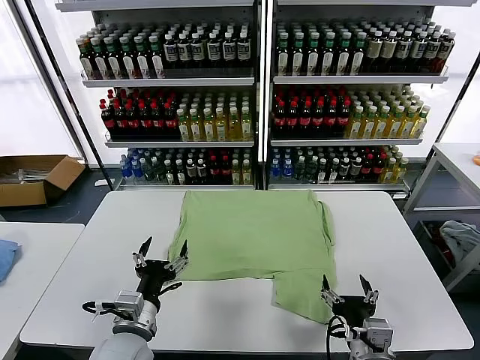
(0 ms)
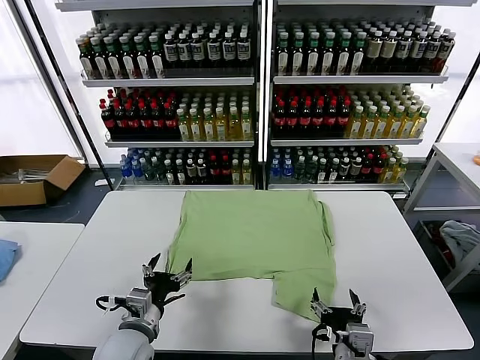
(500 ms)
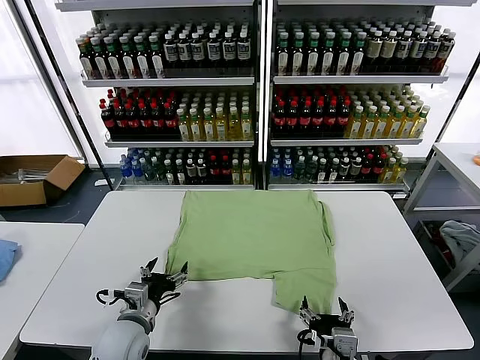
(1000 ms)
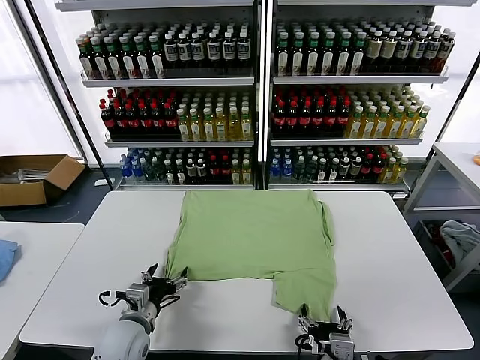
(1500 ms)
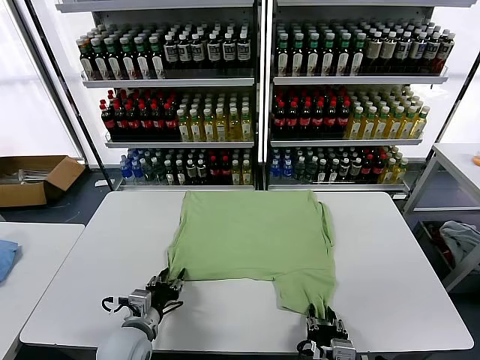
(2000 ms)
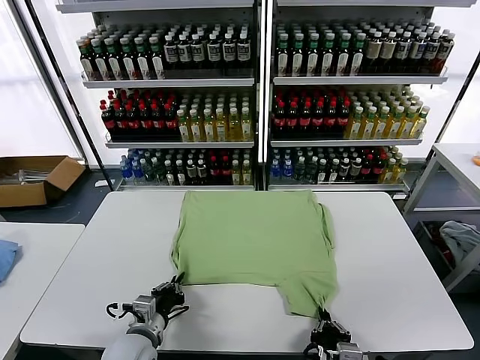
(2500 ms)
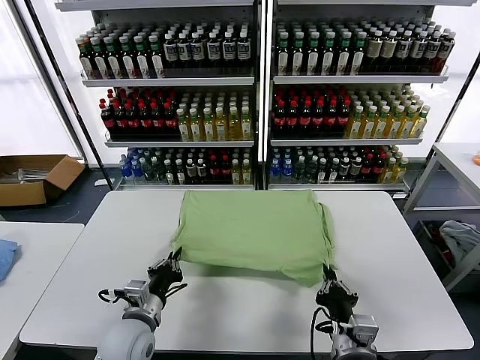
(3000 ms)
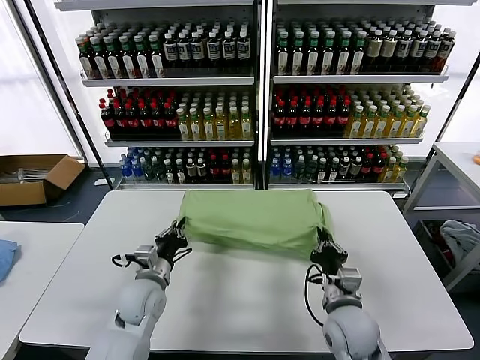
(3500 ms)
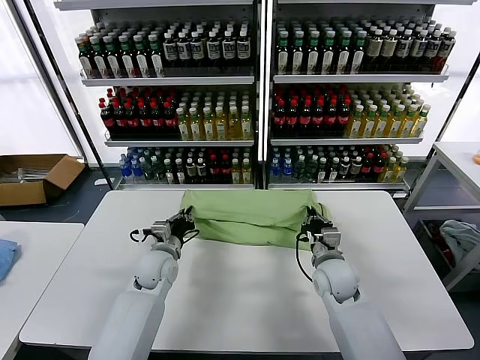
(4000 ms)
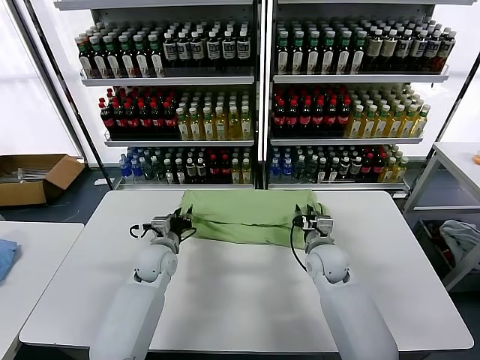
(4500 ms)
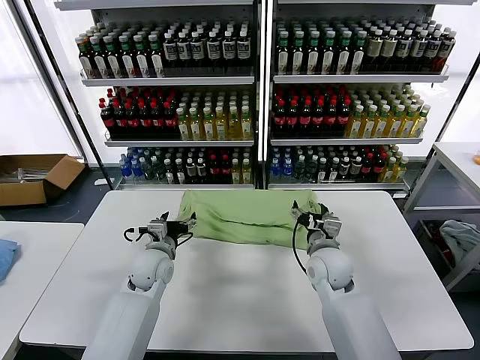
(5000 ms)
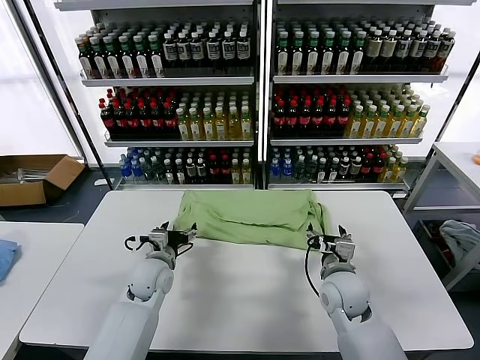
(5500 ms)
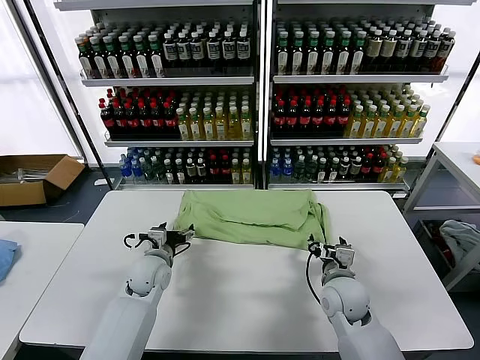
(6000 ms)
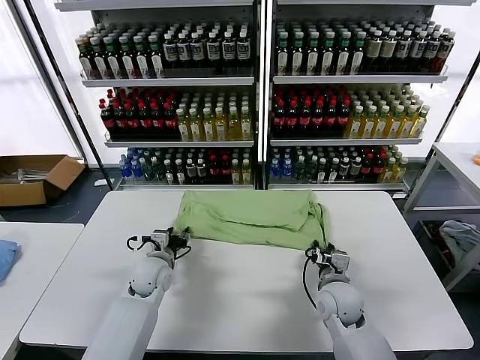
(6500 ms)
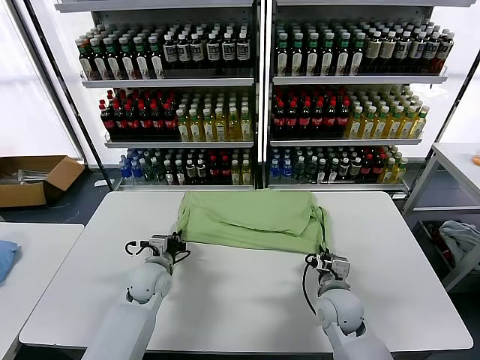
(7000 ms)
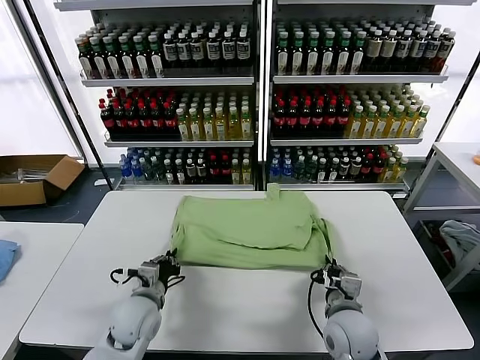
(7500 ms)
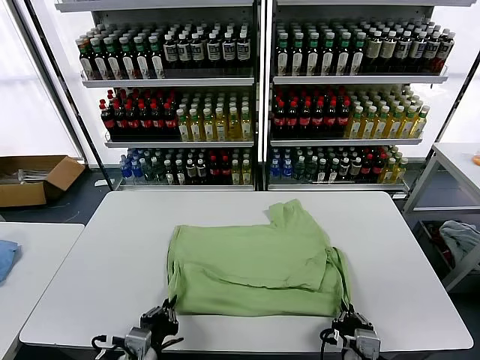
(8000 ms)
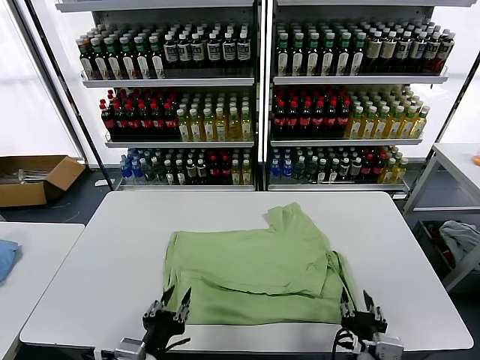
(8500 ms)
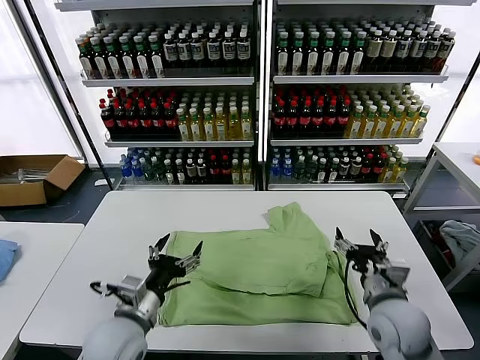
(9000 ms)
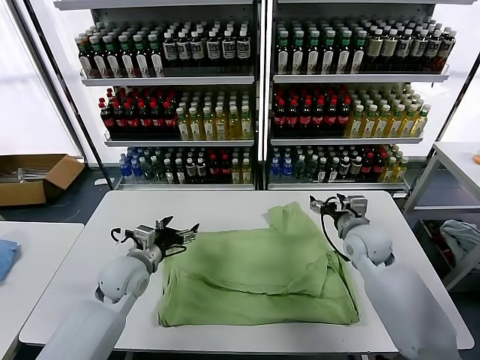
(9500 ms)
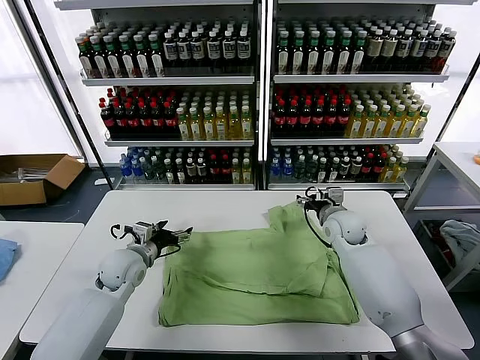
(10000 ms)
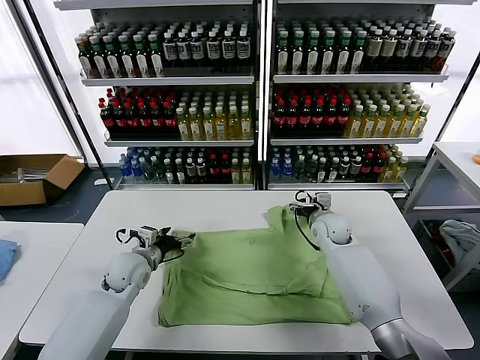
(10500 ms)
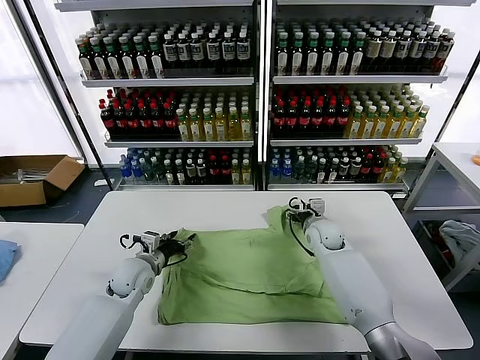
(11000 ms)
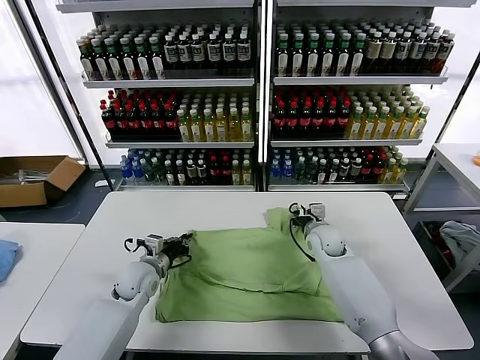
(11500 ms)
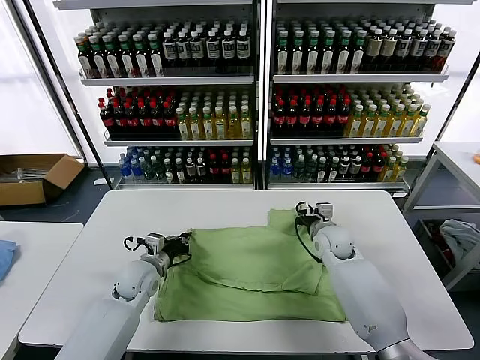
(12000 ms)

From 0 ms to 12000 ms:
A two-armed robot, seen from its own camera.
Task of the whole recording: fold and organize the clothes.
Step, from 0 ms to 2000 ms: use both grippers simultaneously to clamp the lower edge of the clothing fabric.
Step, from 3000 ms to 4500 ms: use both grippers to drag the lower edge of the fabric forward and fold it over the upper edge.
Step, from 5000 ms to 8000 ms: Drag the clothes downward with both gripper.
Step, from 8500 ms to 11500 ms: use both grippers simultaneously to clamp the upper edge of the clothing fabric.
From 2000 ms to 4000 ms: The left gripper travels forward by about 15 cm, and closes, while the right gripper moves forward, some 25 cm.
From 4000 ms to 6000 ms: The left gripper opens up. The right gripper goes about 5 cm backward, and opens up.
From 6000 ms to 8000 ms: The two grippers go approximately 20 cm backward. The left gripper closes its fingers, while the right gripper closes.
From 8000 ms to 10000 ms: The left gripper heads forward, covering approximately 25 cm, and opens; the right gripper moves forward, about 35 cm, and opens.
From 10000 ms to 12000 ms: The right gripper closes its fingers; the left gripper changes place by about 5 cm, and closes its fingers.

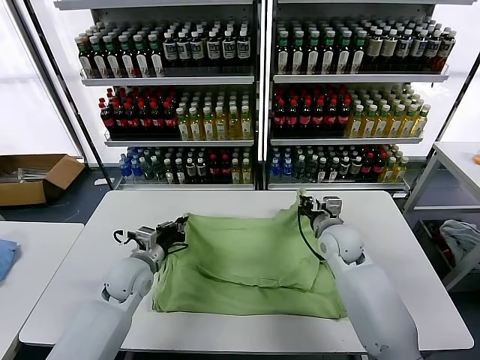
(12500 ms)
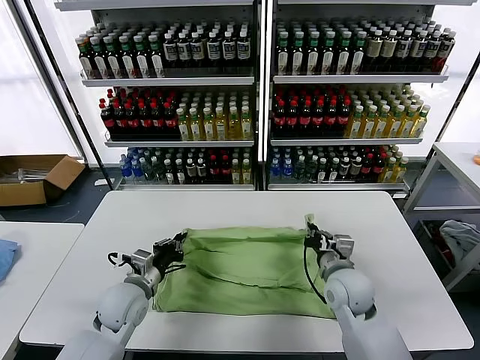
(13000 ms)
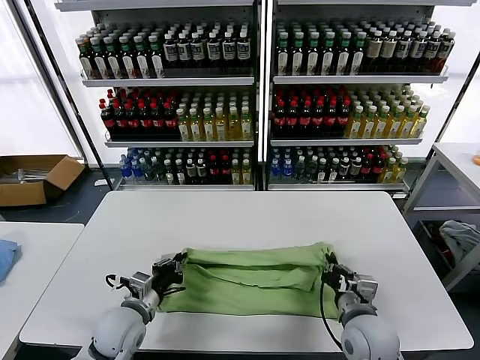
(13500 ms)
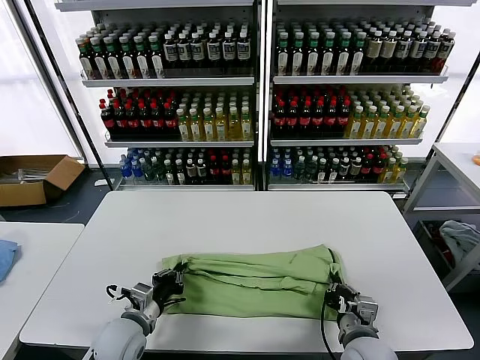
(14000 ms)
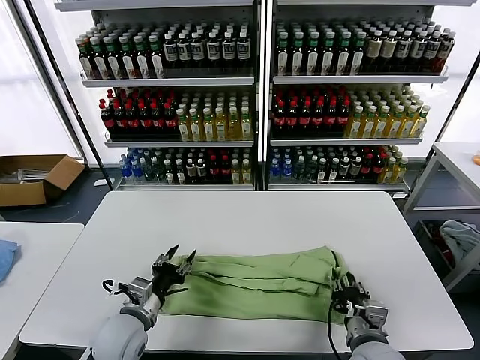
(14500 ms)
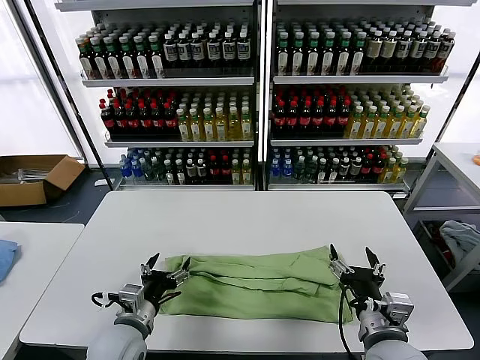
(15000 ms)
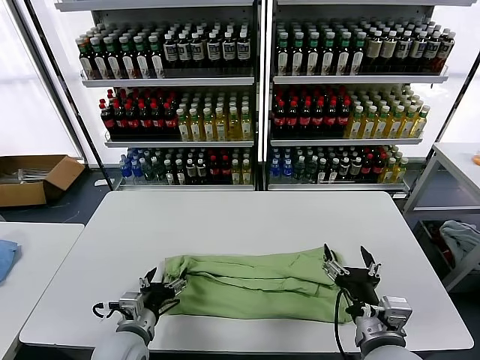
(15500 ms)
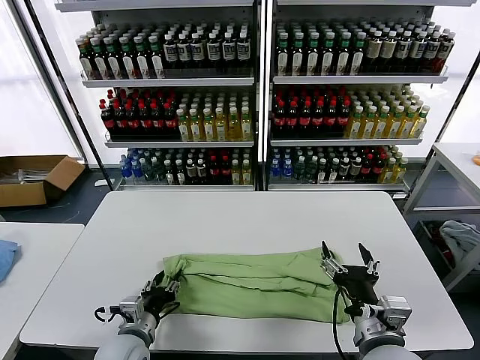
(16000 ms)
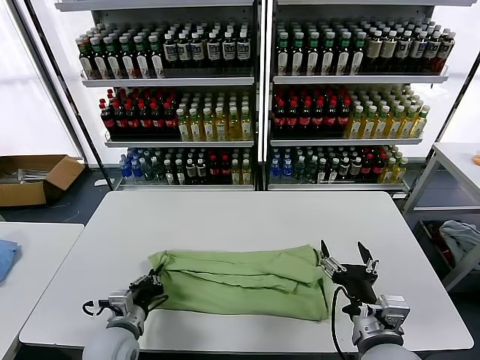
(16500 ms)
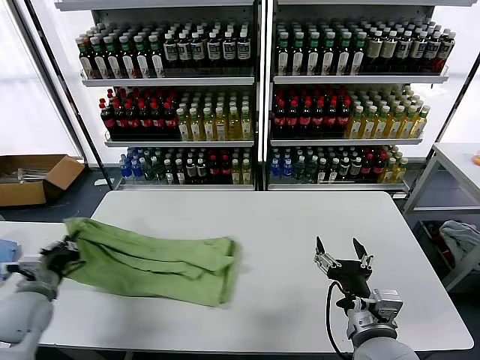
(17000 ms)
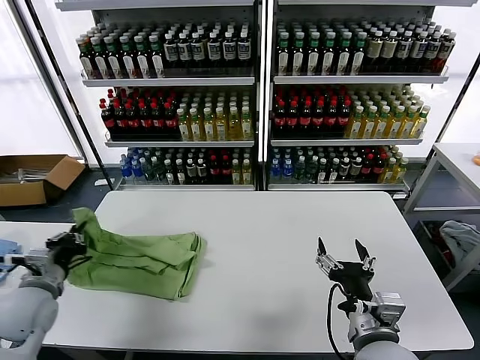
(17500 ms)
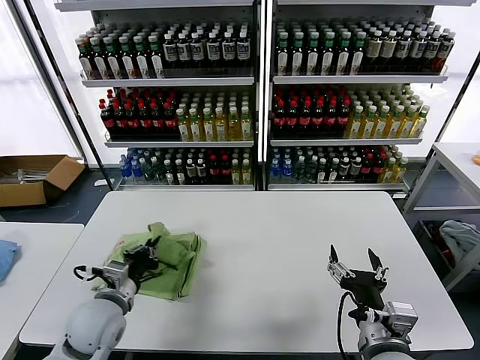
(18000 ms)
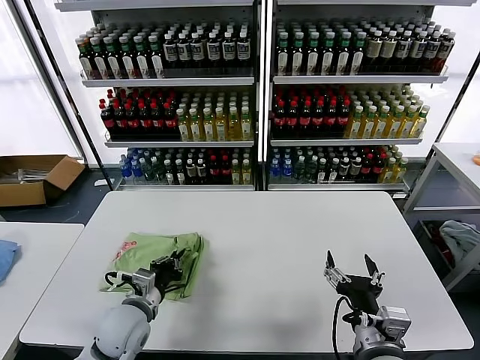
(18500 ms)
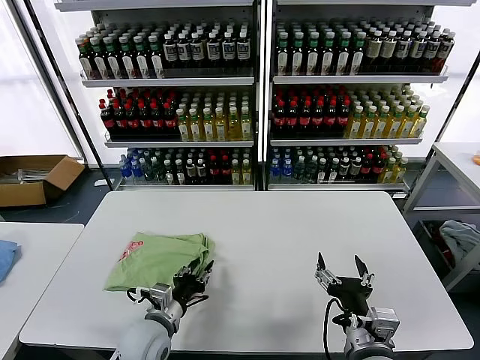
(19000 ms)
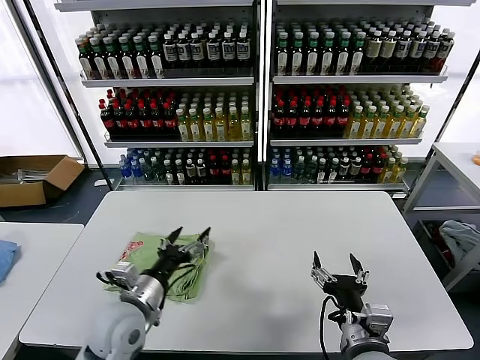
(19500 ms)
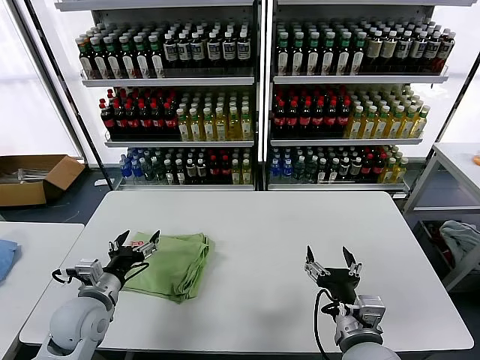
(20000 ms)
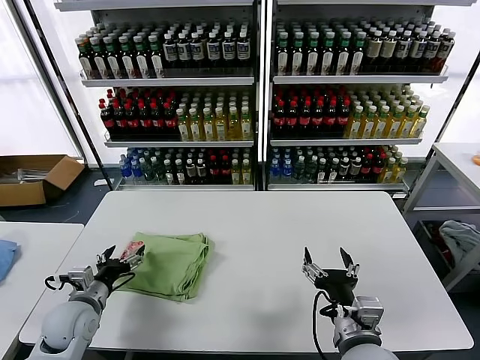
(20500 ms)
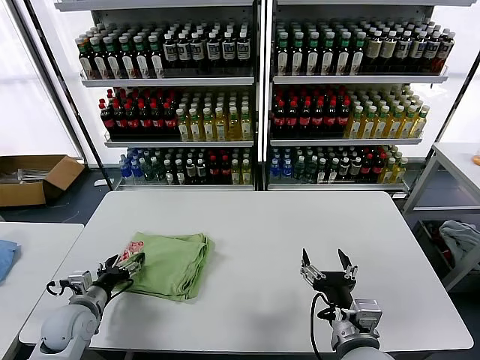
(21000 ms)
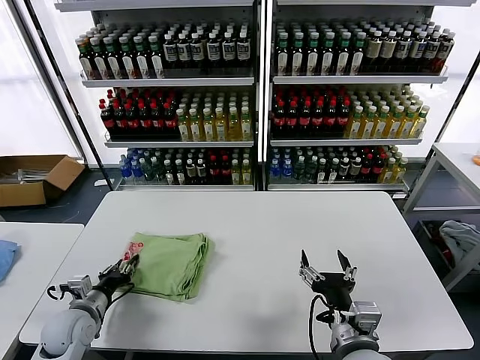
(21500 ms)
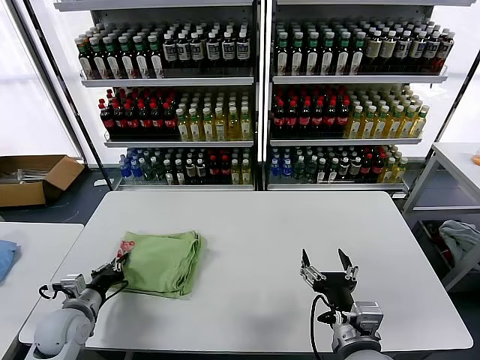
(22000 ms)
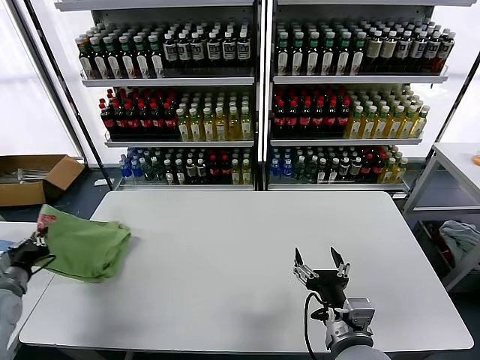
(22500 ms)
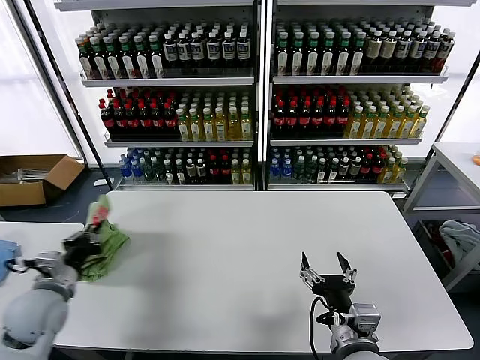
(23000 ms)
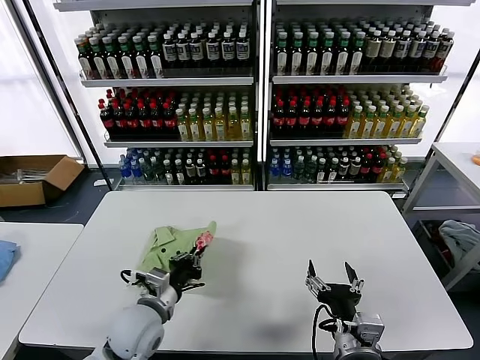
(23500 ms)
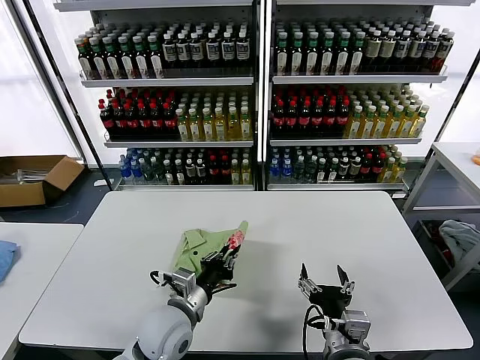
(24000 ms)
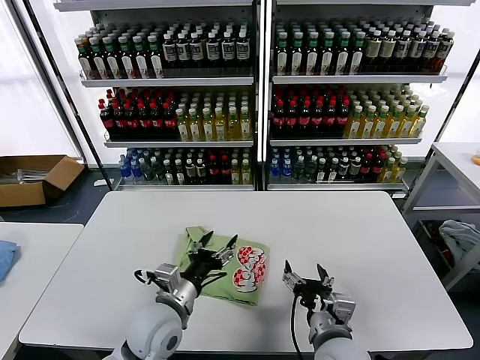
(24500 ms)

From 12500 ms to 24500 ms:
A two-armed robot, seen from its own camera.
Task of the whole recording: fold and organize the clothes.
Step, from 12500 ms to 14500 ms: use both grippers to drag the upper edge of the fabric backward and fold it over the lower edge.
Step, from 15000 ms to 16000 ms: use the left gripper to clamp the left edge of the fabric.
Step, from 16500 ms to 19000 ms: use the left gripper to drag the left edge of the fabric to the left and folds it over the right edge.
Step, from 19500 ms to 24000 ms: Flip the folded clothes over with left gripper.
From 12500 ms to 14500 ms: The right gripper goes approximately 25 cm backward, and opens, while the left gripper is displaced backward by some 15 cm, and opens up.
From 14500 ms to 16500 ms: The left gripper closes its fingers. The right gripper goes approximately 10 cm upward, and opens.
From 16500 ms to 18500 ms: The left gripper reaches roughly 15 cm to the left, then returns.
From 18500 ms to 20500 ms: The left gripper goes roughly 10 cm to the left, and opens.
From 20500 ms to 22500 ms: The left gripper travels to the left by approximately 15 cm, and closes its fingers.
From 22500 ms to 24500 ms: The left gripper heads to the right, covering approximately 35 cm, and opens.

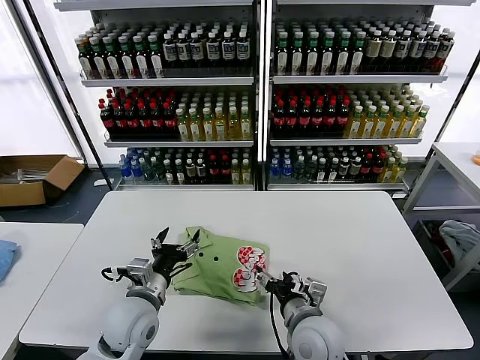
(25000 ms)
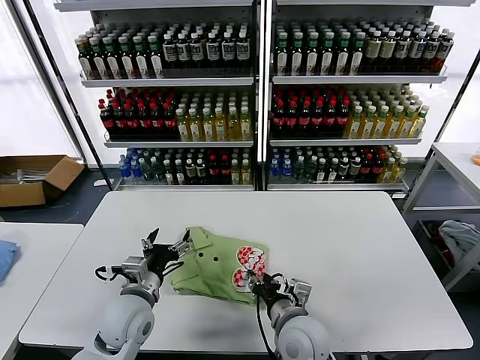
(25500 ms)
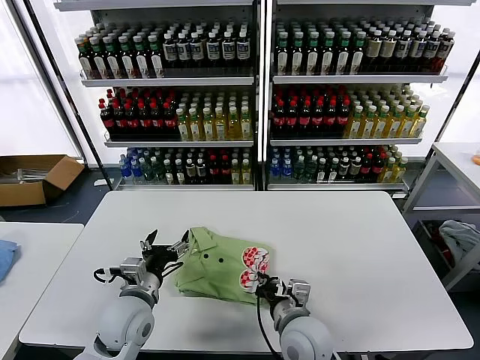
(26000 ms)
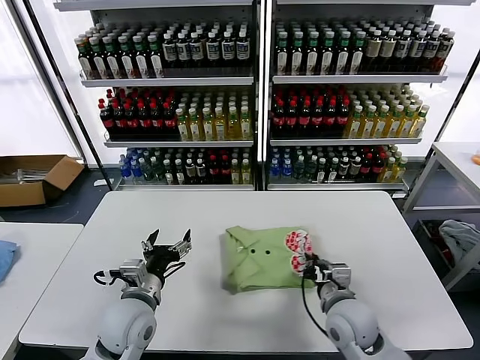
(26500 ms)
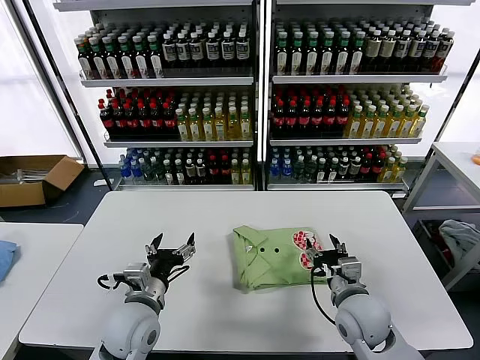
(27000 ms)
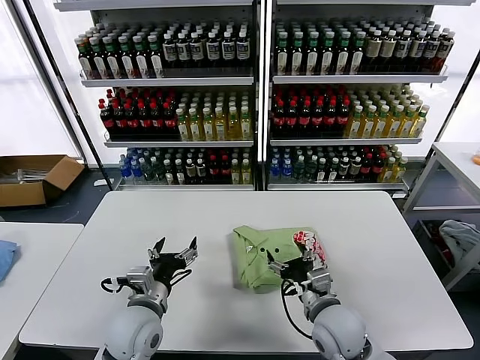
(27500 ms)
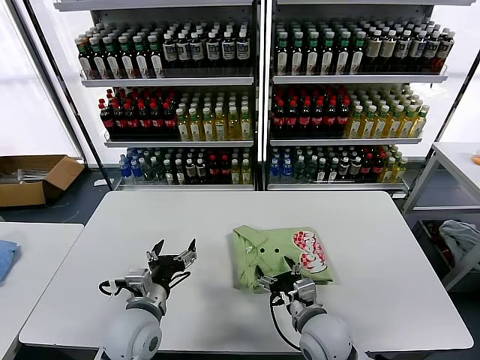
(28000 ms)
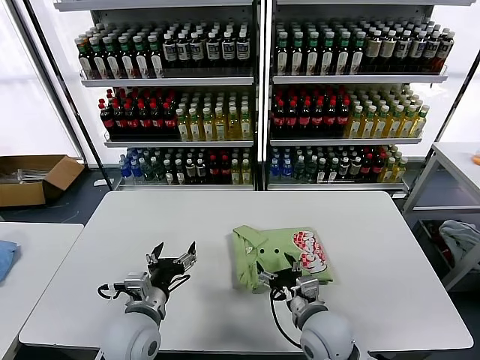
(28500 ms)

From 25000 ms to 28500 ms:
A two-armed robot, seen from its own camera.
Task of the whole recording: fold and organize the clothes.
From 25000 ms to 27000 ms: The right gripper shifts about 10 cm to the right, and closes and opens again.
From 27000 ms to 28500 ms: The right gripper goes approximately 10 cm to the left.
